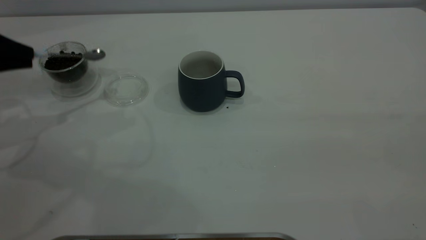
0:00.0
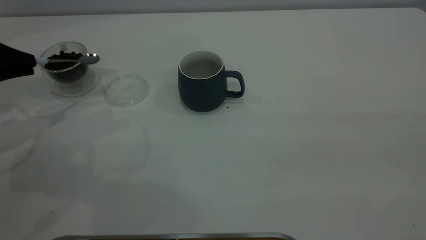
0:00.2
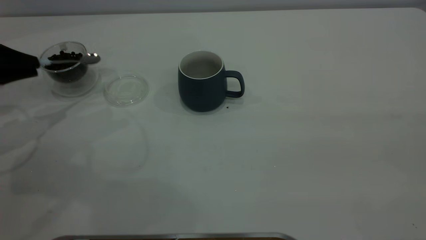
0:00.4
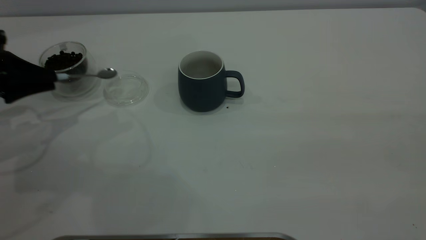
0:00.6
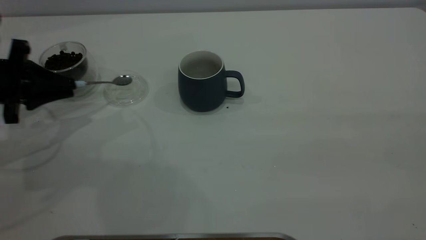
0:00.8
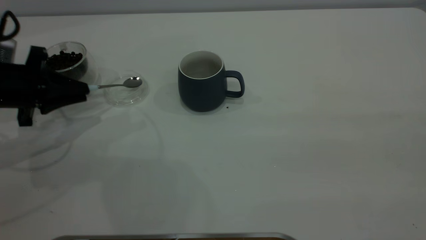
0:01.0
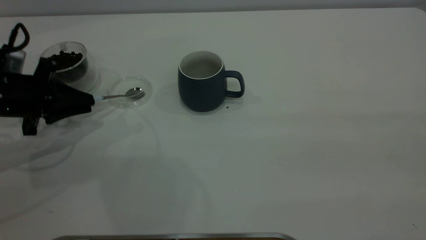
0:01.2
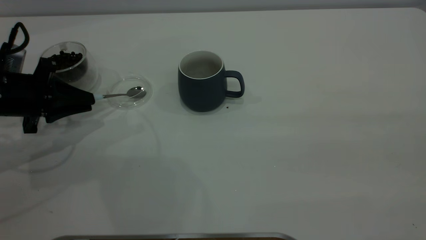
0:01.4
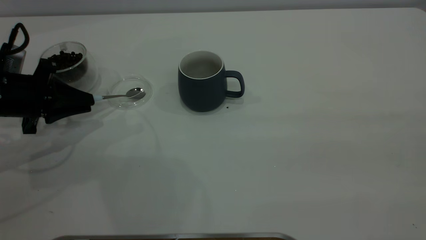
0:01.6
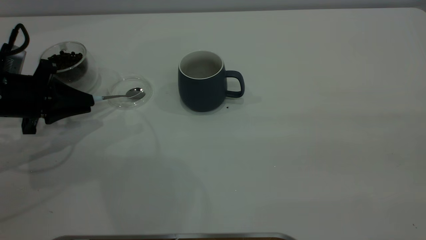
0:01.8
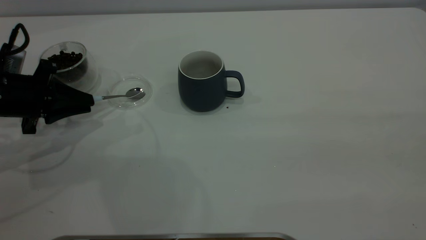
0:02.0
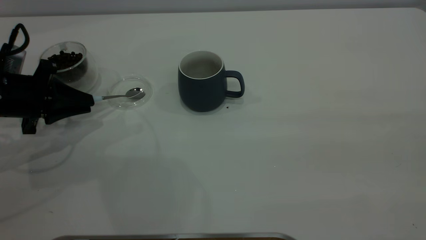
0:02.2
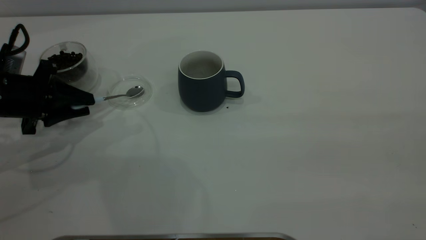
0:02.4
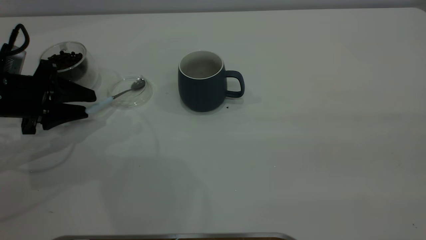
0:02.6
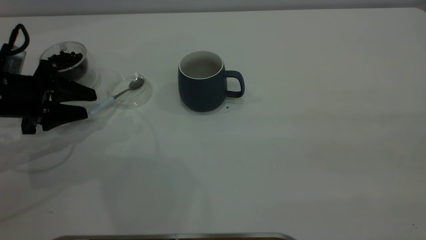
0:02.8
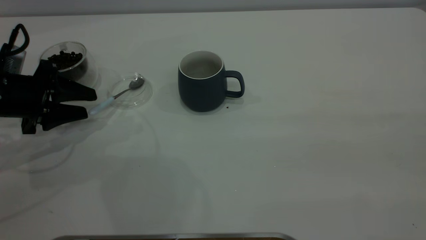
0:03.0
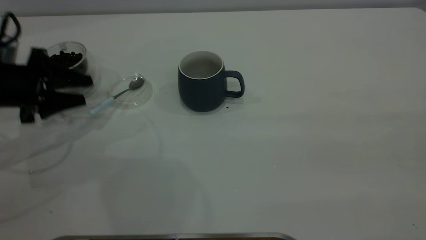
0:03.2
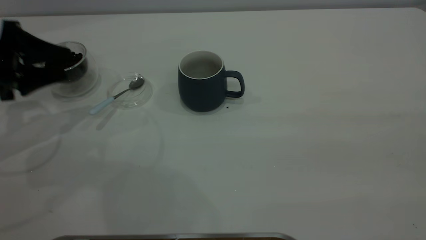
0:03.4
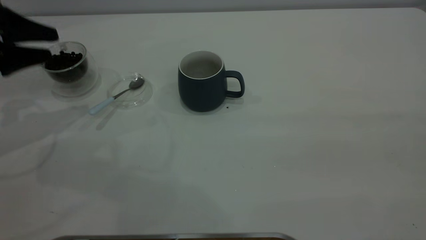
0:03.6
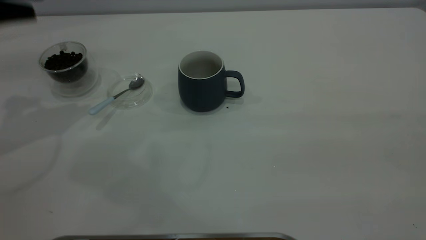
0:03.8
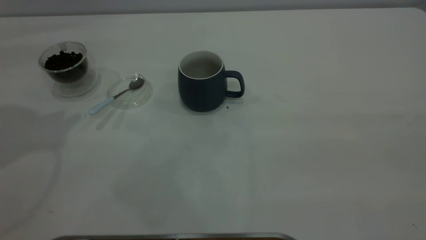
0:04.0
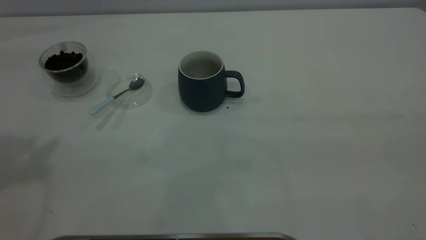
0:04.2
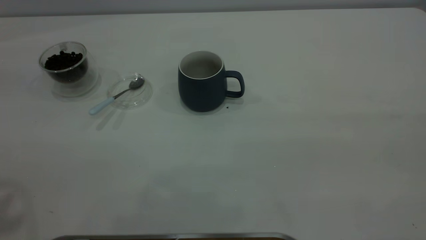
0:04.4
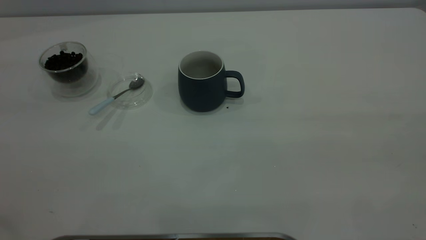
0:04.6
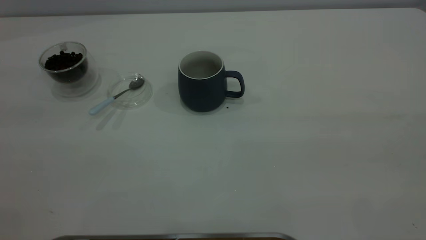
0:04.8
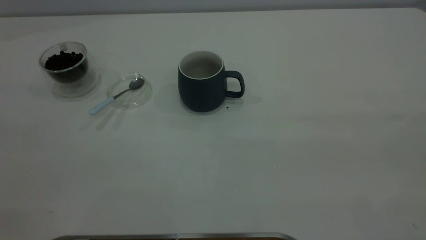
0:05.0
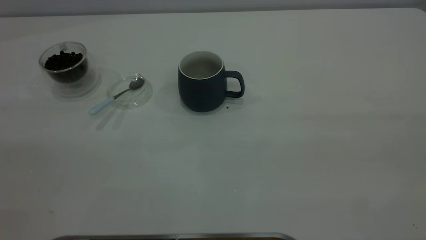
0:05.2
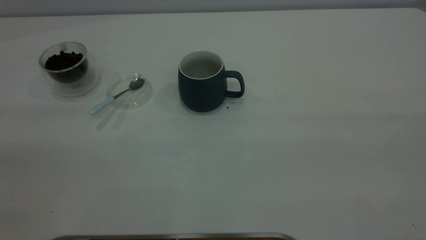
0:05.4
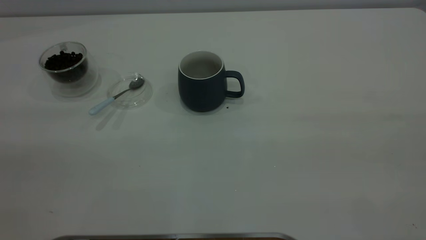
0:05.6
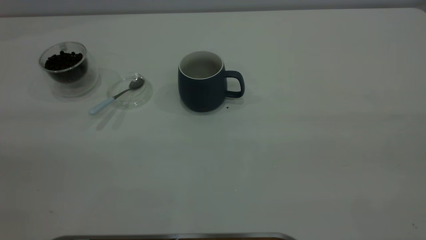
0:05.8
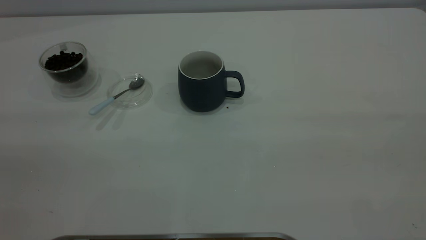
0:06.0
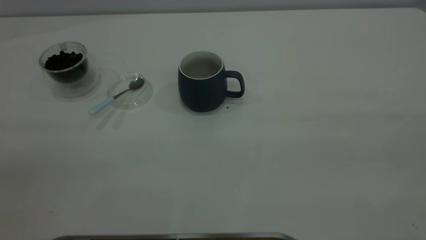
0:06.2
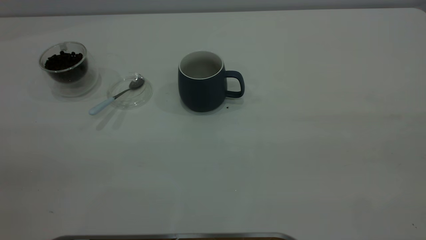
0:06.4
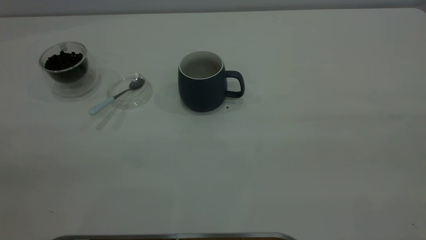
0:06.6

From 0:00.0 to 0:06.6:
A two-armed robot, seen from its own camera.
Task of the whole recording: the right gripper place the grey cup in the center of the table, the left gripper take the blue spoon from the cup lid and scoop out the coffee beans from the coffee cup and put them into the grey cup, the left gripper put the spoon back into the cup lid.
Step, from 0:00.0 to 0:03.6: Place the spoon back in its original place.
From 0:00.0 to 0:01.6: The left gripper shifts roughly 10 cm downward and to the right.
From 0:01.6 to 0:03.2: The left gripper opens.
From 0:03.2 to 0:05.0: The left gripper travels upward and backward by approximately 40 cm.

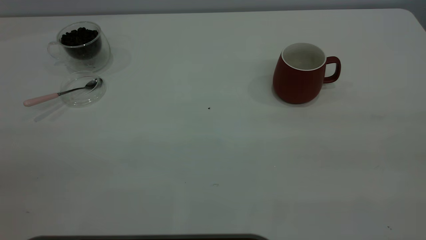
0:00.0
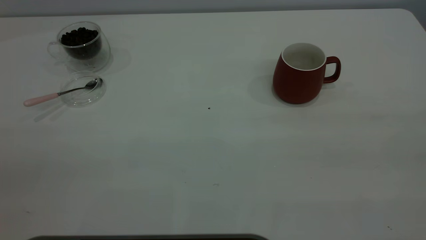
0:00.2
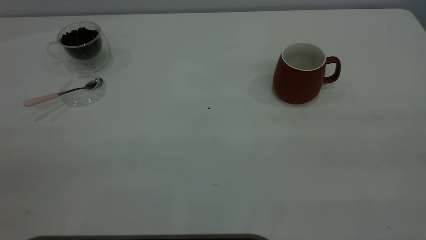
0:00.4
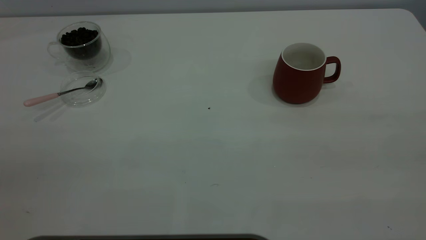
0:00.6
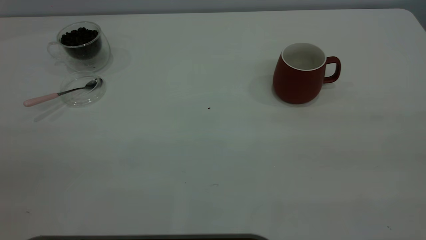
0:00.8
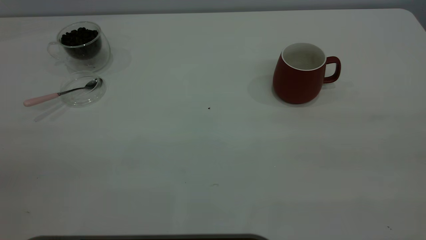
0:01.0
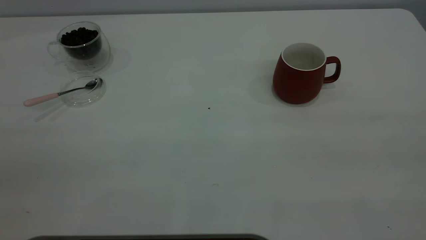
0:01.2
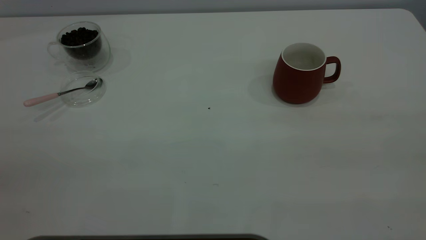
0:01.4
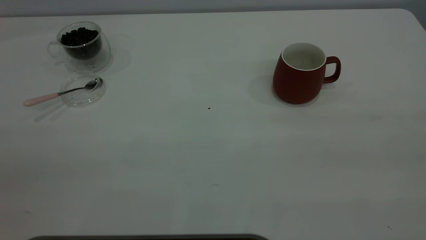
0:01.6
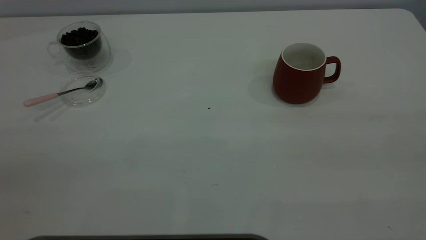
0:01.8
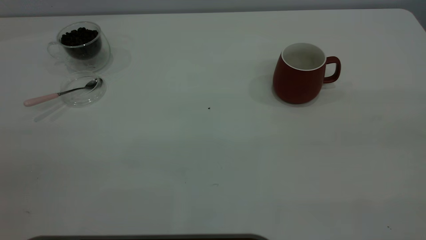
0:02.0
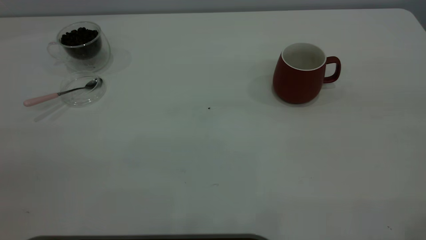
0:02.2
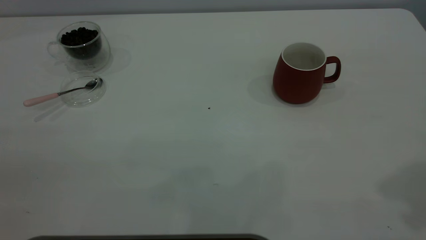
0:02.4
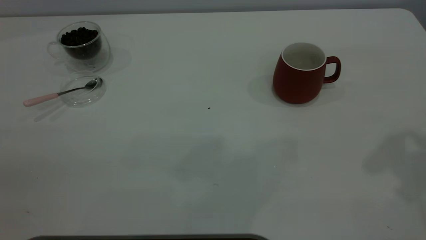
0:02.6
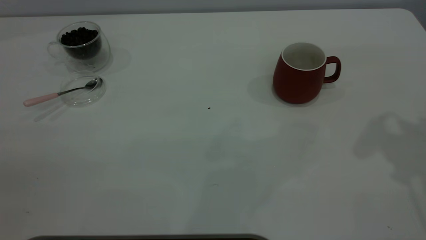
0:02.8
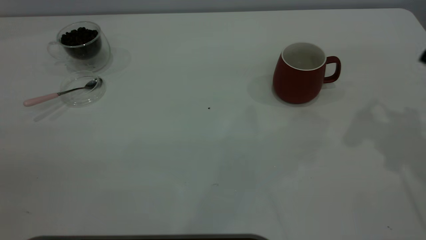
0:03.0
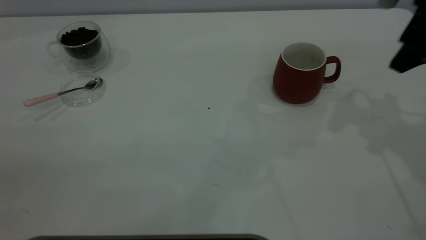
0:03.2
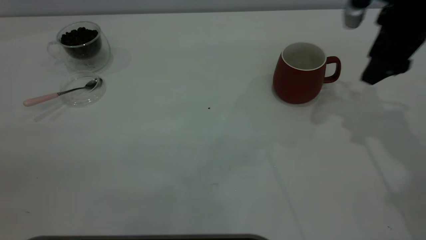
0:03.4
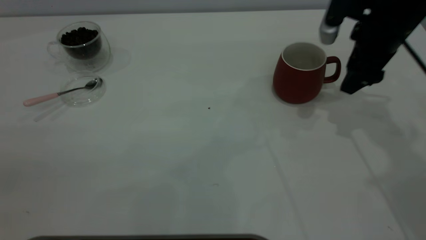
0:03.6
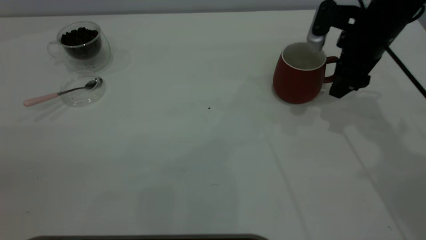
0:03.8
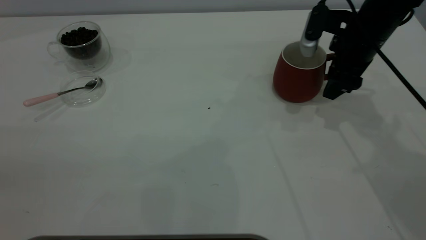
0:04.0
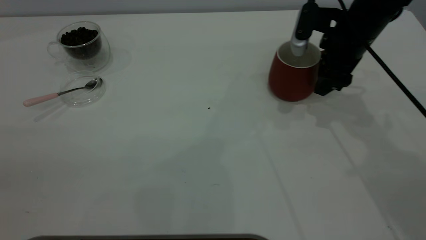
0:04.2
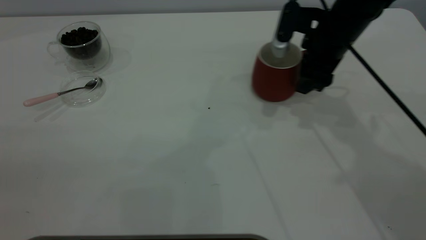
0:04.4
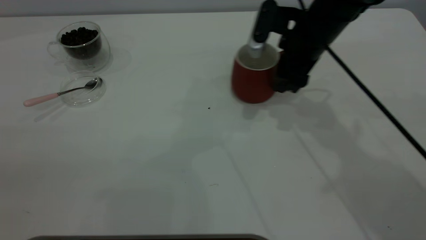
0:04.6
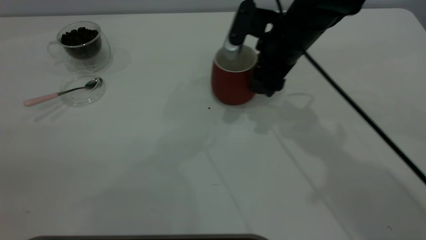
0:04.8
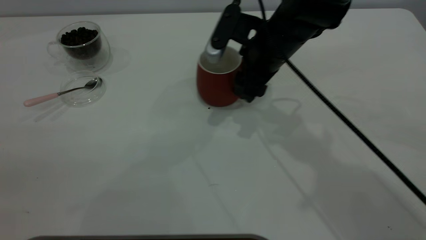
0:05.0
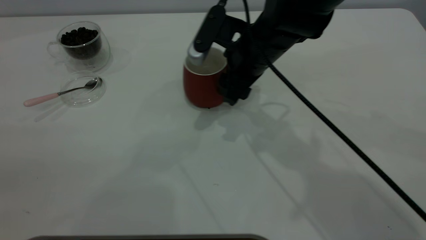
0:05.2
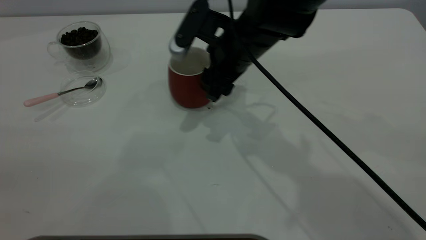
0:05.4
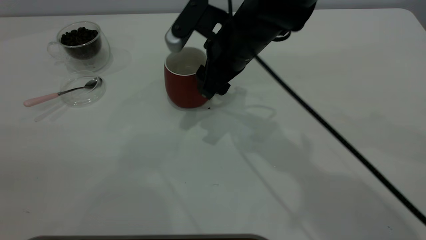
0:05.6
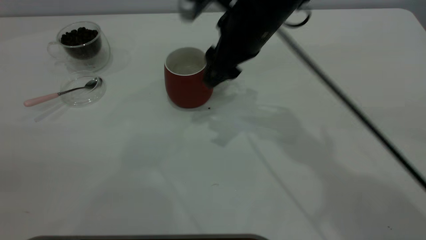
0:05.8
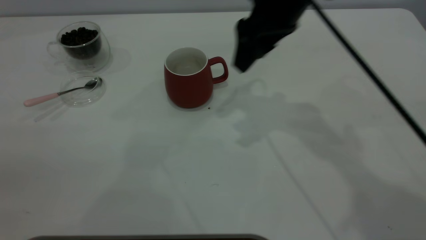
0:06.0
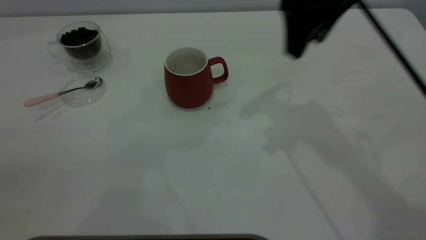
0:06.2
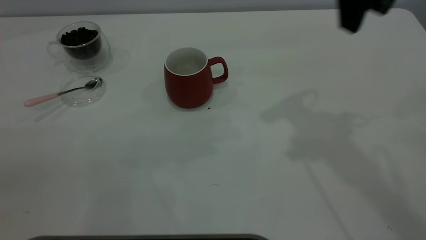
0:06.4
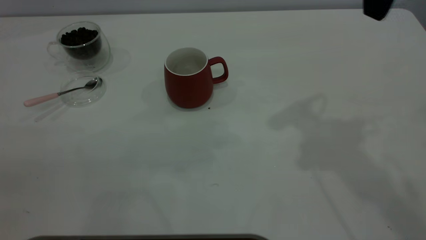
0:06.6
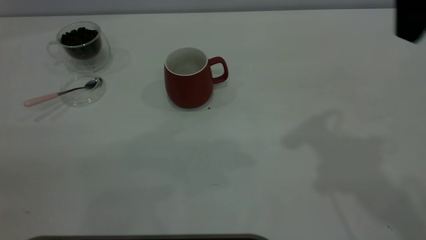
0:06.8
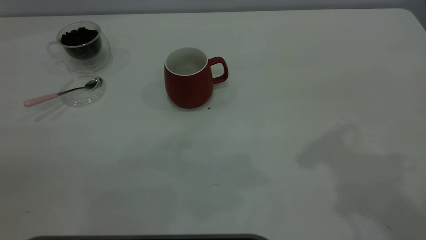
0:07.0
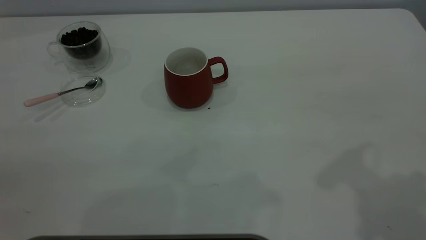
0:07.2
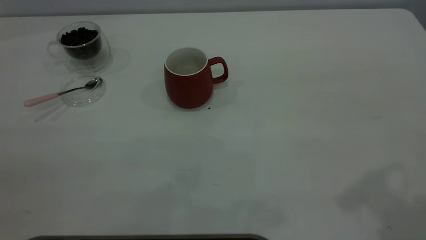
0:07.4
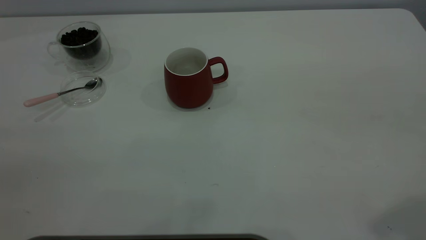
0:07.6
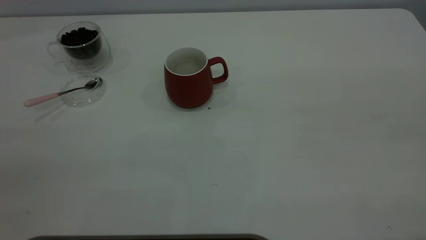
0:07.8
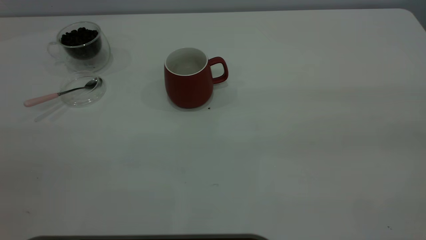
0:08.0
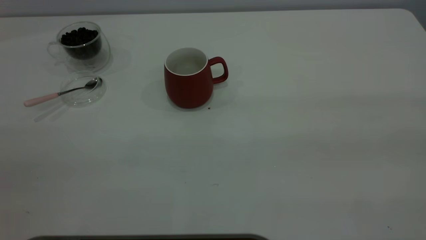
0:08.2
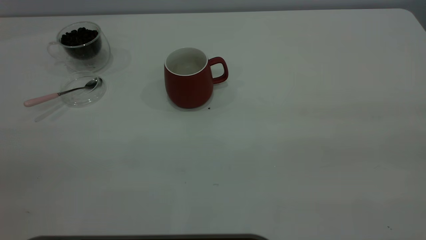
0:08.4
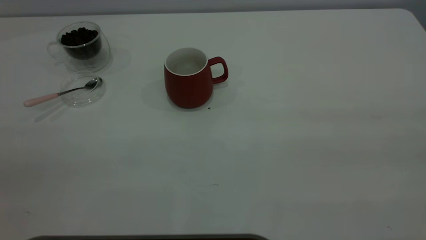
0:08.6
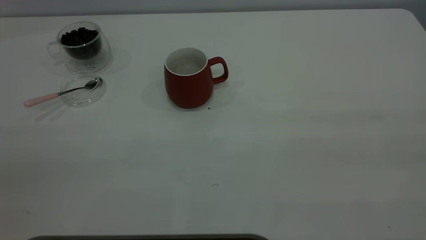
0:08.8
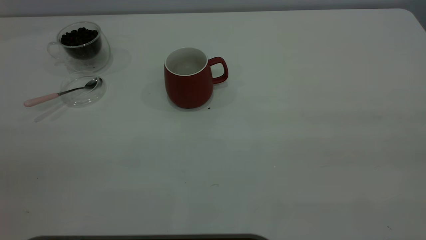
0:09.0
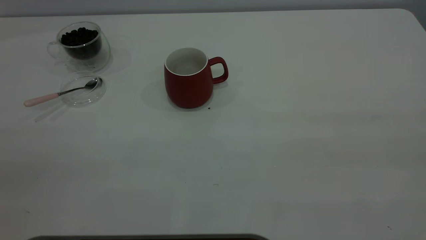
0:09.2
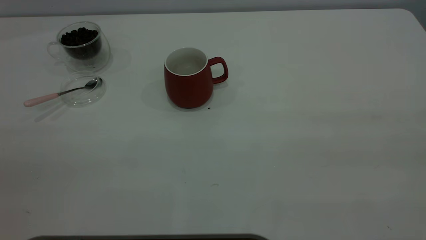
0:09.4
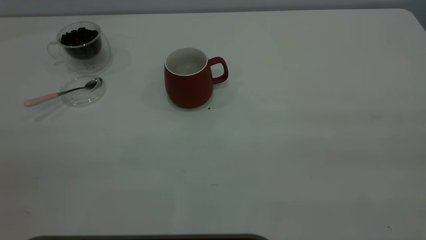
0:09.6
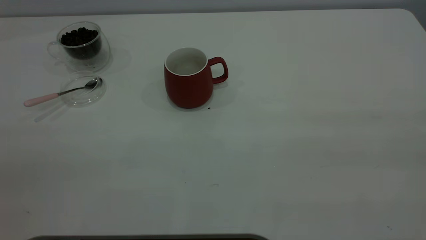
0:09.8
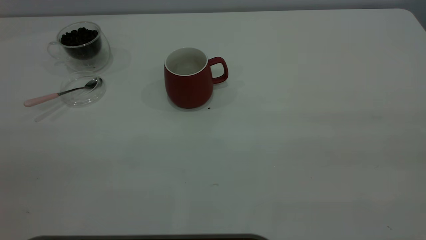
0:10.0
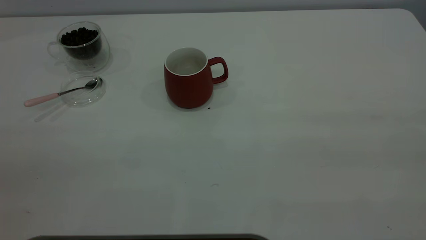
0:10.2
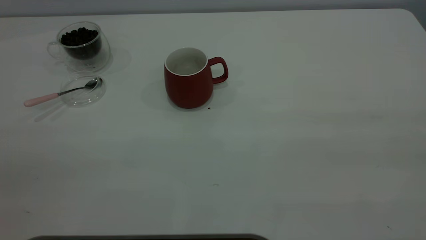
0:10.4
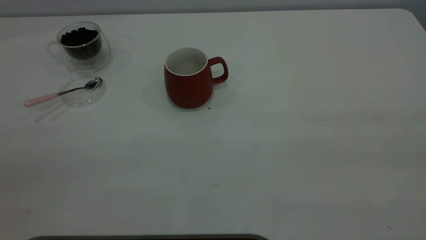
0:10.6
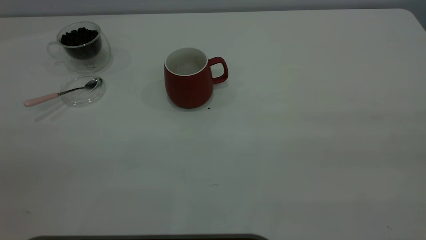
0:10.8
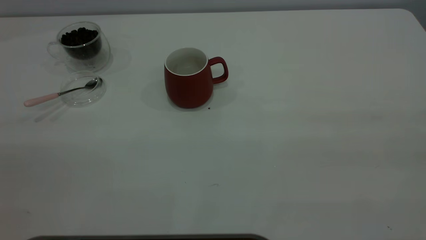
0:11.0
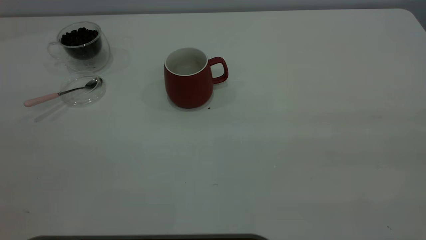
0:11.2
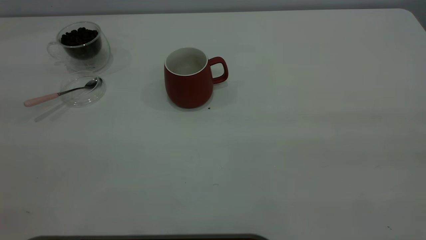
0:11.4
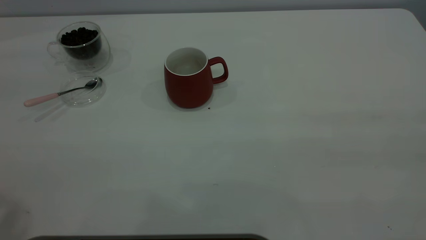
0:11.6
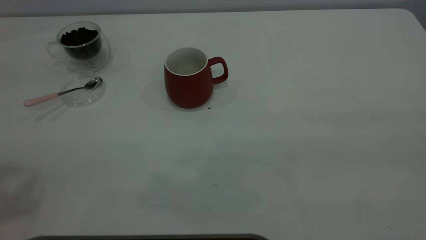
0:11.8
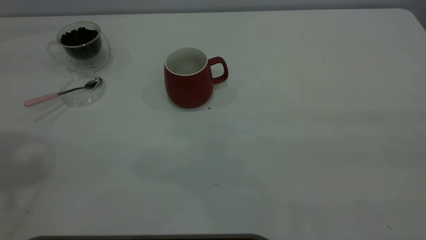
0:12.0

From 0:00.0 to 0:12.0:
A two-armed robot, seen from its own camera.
Task of the whole recording: the right gripper place the red cup in the center of the table, the left gripper take the pink spoon from the cup lid and scoop out the coffee beans from the coffee cup and put them into the red cup, the left gripper put the spoon back into the cup lid.
Step, from 0:00.0 to 0:05.8: Move the cup to the center of view.
From 0:00.0 to 0:01.6: The two grippers keep their place.
From 0:03.0 to 0:04.4: The right gripper moves to the left, downward and forward, roughly 20 cm.
From 0:04.4 to 0:06.0: The right gripper moves upward and to the left, about 10 cm.
From 0:06.0 to 0:07.6: The right gripper goes some 35 cm backward, to the right and upward.
From 0:09.0 to 0:10.4: Both grippers stay put.
